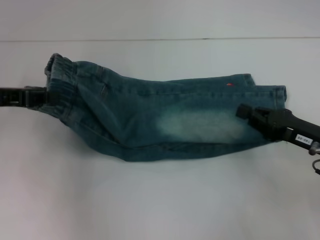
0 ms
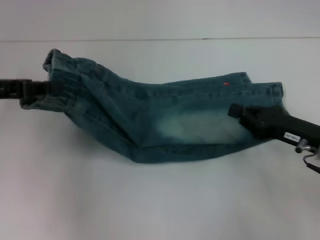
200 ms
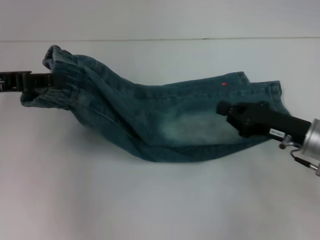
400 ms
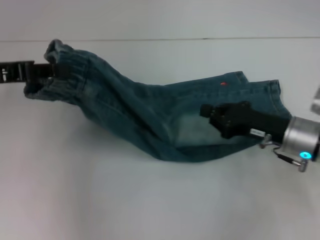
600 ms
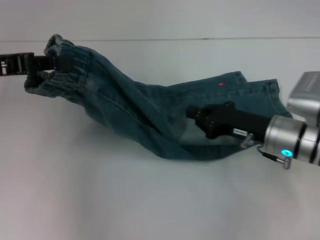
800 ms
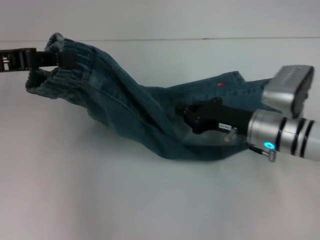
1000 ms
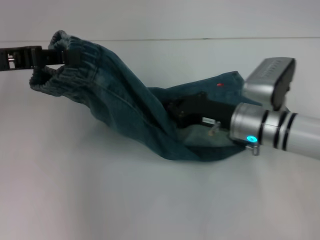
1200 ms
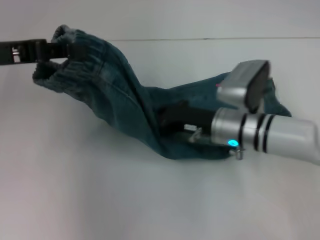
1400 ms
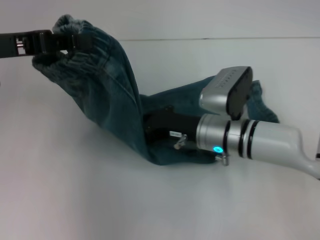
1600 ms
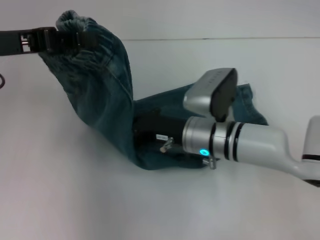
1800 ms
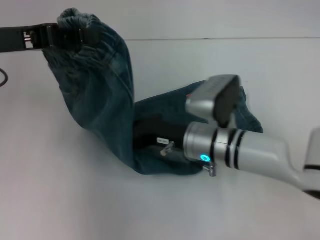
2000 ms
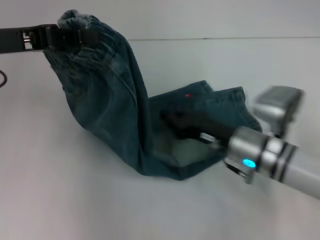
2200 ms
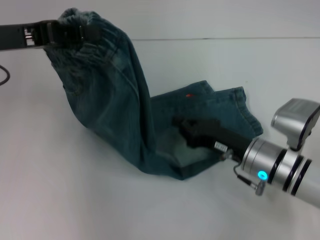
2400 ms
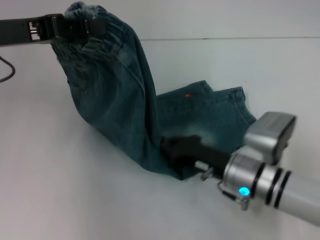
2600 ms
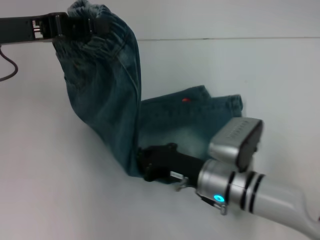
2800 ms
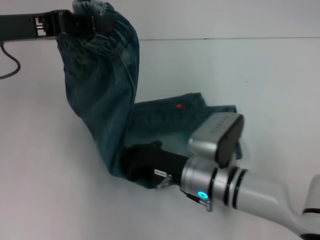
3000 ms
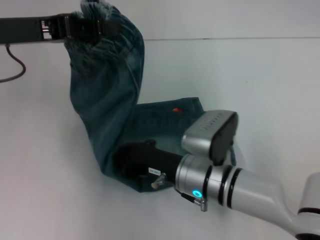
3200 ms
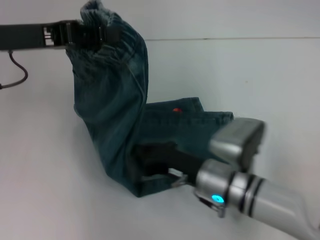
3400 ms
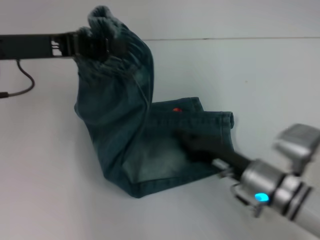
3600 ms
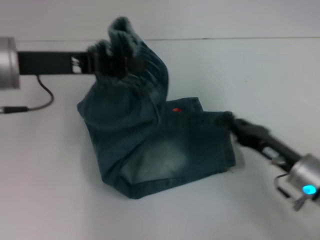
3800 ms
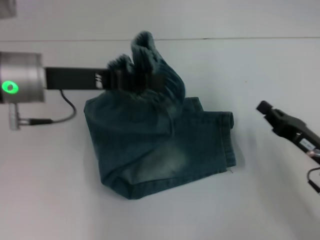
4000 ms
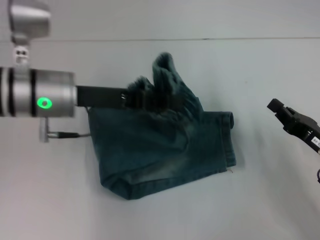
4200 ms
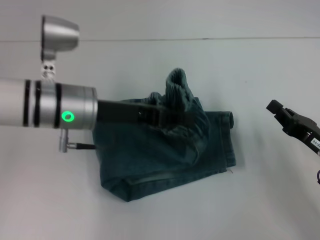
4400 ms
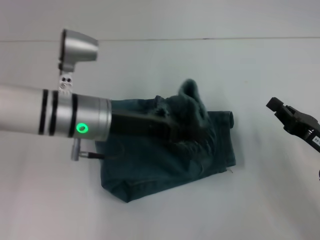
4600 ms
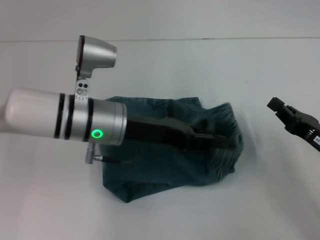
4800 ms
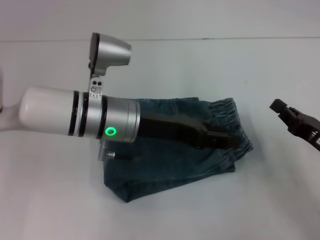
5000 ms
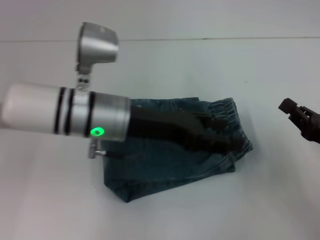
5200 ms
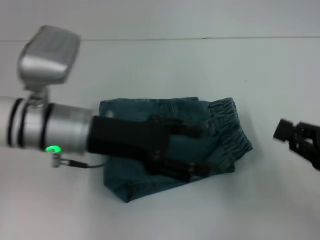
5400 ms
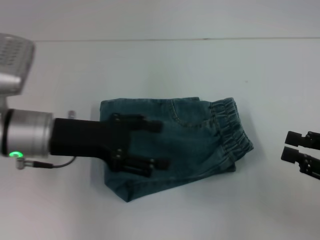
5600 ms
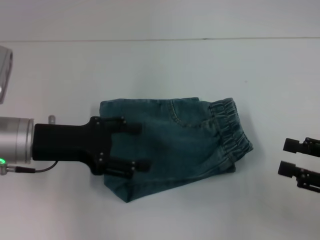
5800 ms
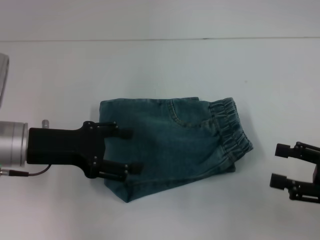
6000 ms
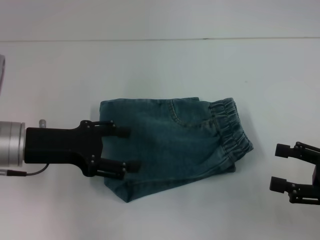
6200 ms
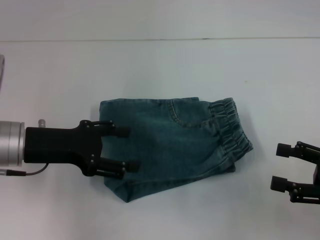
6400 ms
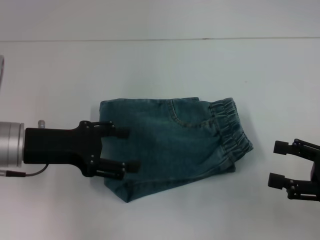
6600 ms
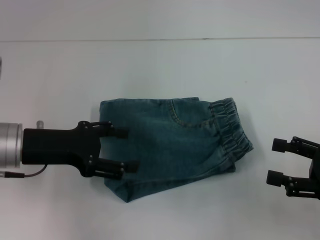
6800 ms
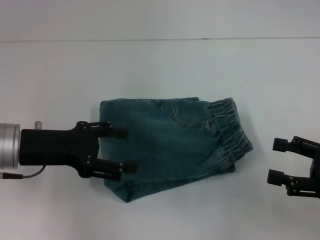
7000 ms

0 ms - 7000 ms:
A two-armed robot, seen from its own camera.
Step, 0 ms - 3400 ms: Press the middle of the pants with your right hand.
Step, 3600 ms - 5000 ms: Fold to the right with your left hand.
0 ms - 1400 ms: The right gripper travels to the left and forward by approximately 15 cm. The left gripper shifts about 5 cm upward.
1400 ms - 2800 ms: The right gripper swings left and right, approximately 10 cm each way, with 2 reversals.
2800 ms - 4200 ms: The left gripper goes roughly 10 cm to the right and downward. Meanwhile the right gripper heads to the right, covering about 20 cm.
4200 ms - 5600 ms: The left gripper changes place by about 5 cm, and opens its fingers, while the right gripper goes approximately 10 cm upward and to the right.
5600 ms - 7000 ms: The right gripper opens.

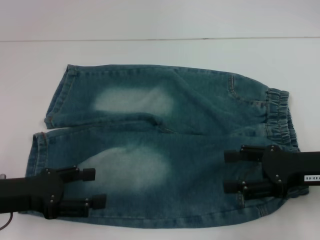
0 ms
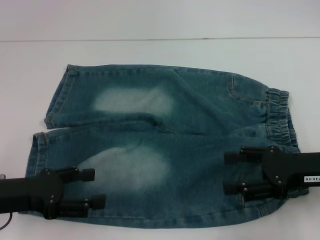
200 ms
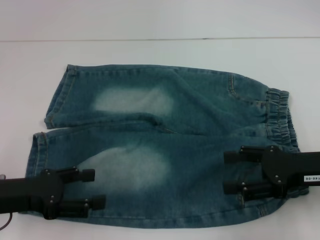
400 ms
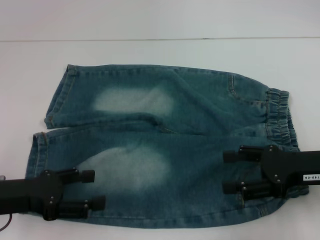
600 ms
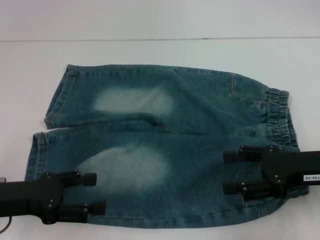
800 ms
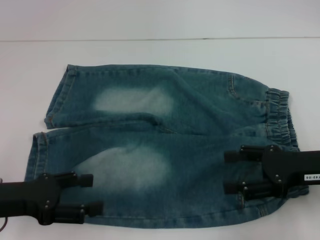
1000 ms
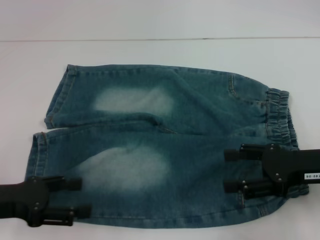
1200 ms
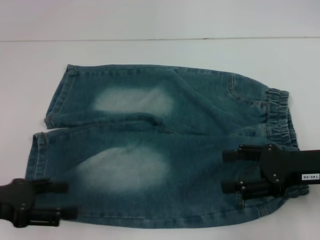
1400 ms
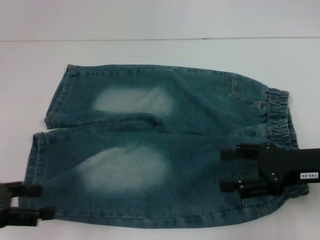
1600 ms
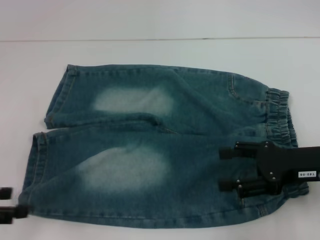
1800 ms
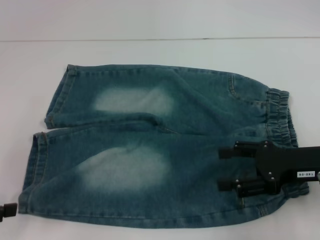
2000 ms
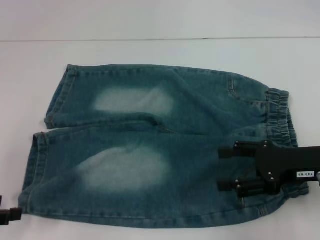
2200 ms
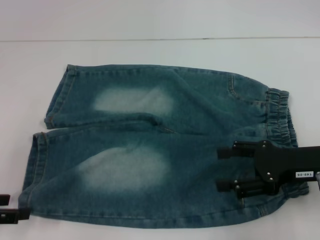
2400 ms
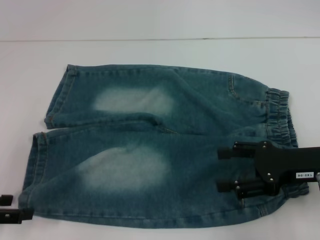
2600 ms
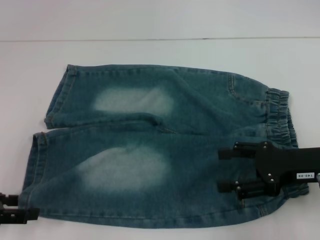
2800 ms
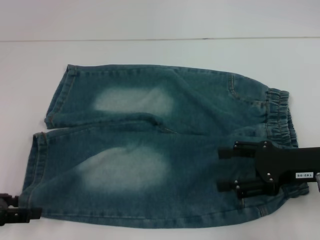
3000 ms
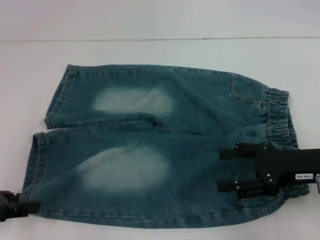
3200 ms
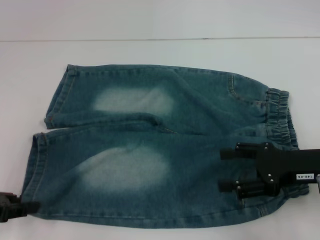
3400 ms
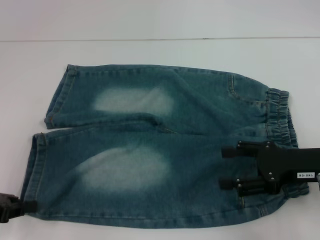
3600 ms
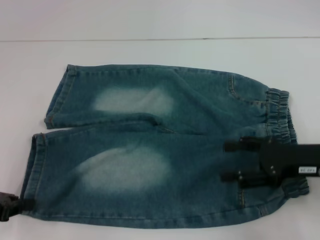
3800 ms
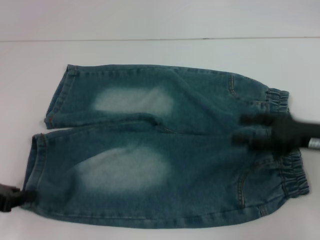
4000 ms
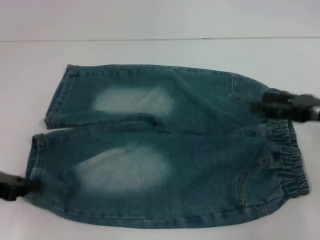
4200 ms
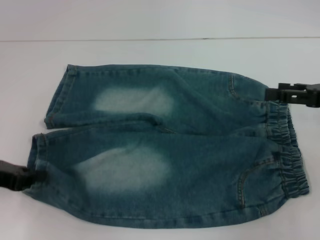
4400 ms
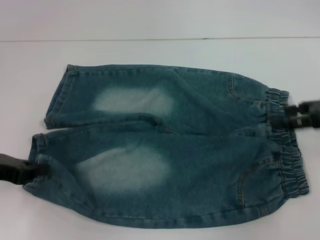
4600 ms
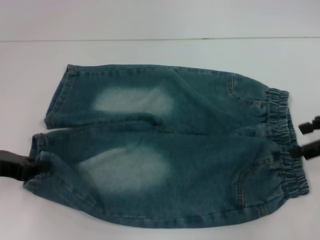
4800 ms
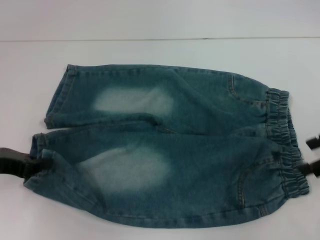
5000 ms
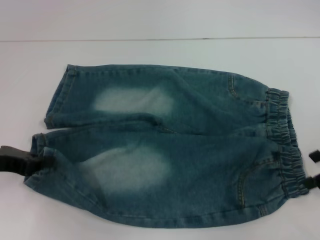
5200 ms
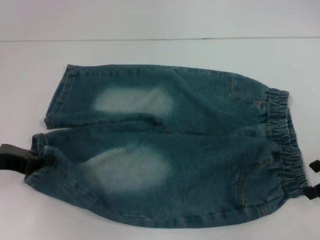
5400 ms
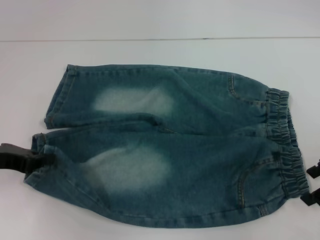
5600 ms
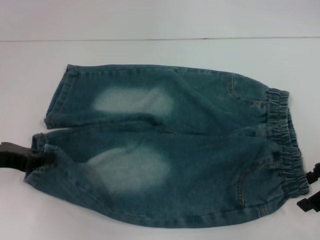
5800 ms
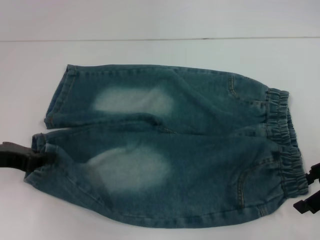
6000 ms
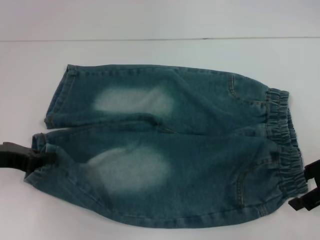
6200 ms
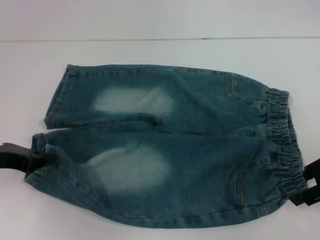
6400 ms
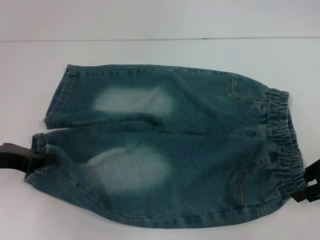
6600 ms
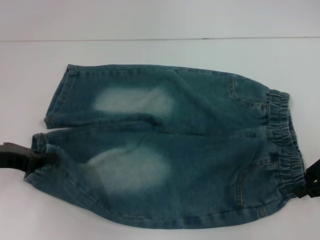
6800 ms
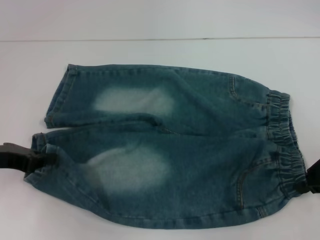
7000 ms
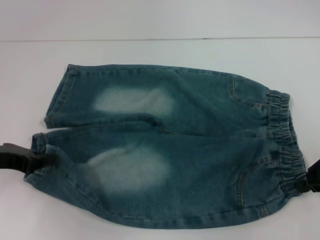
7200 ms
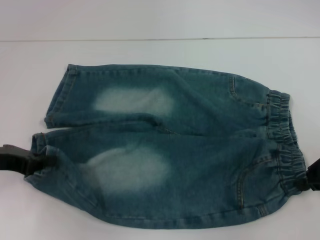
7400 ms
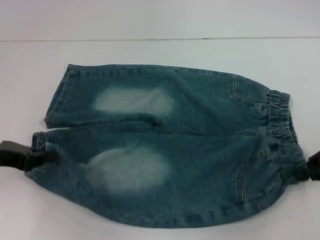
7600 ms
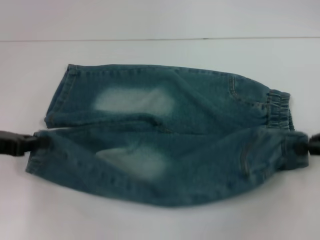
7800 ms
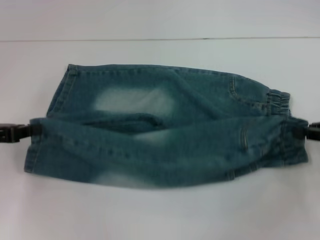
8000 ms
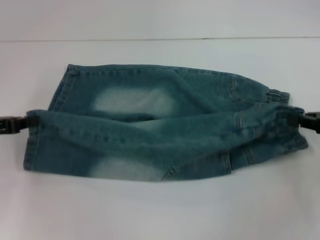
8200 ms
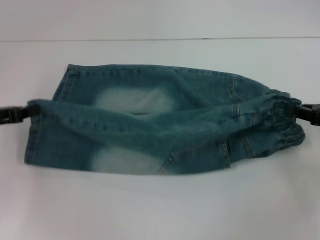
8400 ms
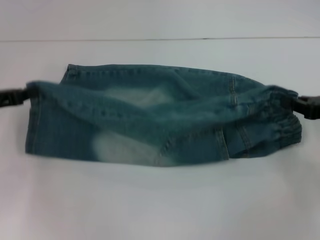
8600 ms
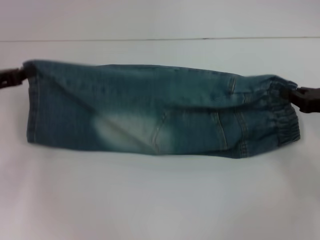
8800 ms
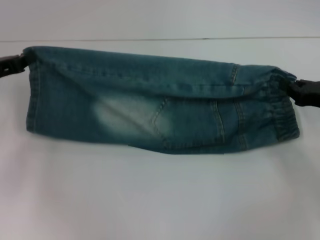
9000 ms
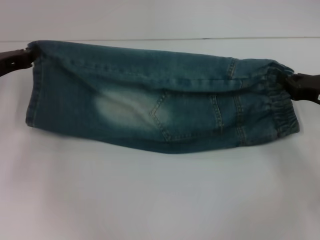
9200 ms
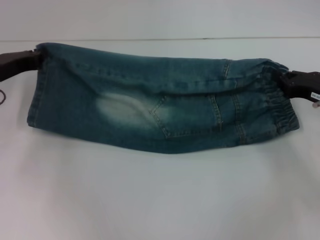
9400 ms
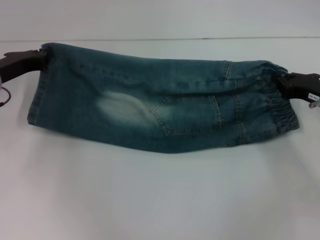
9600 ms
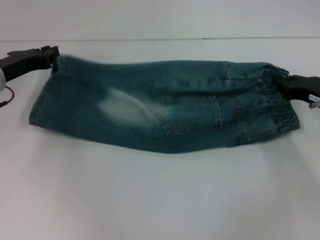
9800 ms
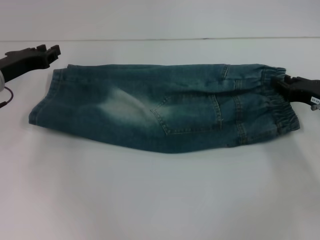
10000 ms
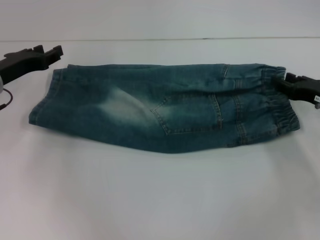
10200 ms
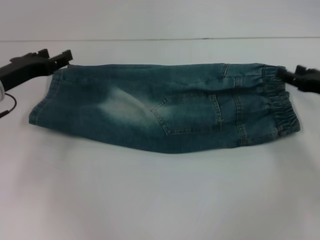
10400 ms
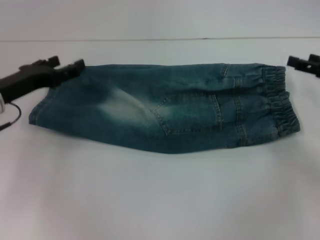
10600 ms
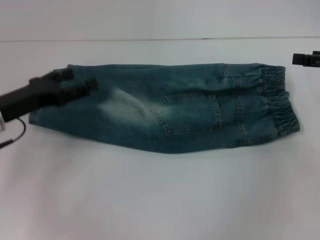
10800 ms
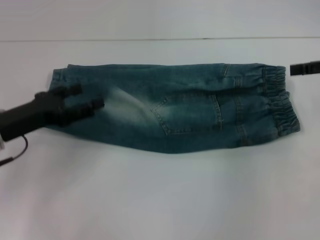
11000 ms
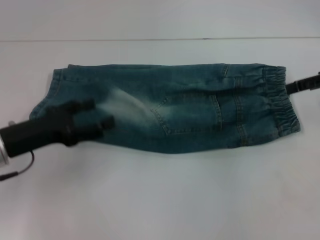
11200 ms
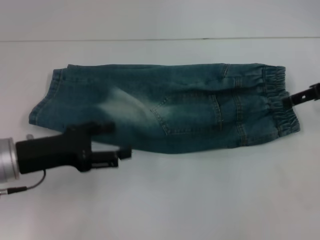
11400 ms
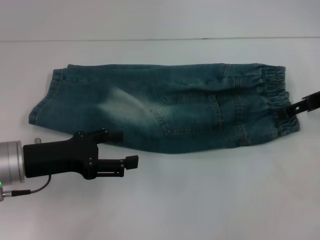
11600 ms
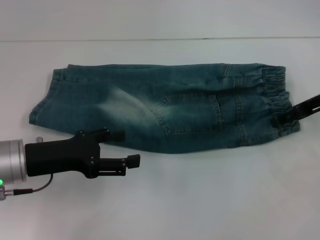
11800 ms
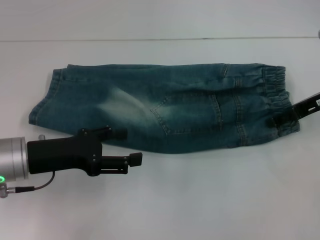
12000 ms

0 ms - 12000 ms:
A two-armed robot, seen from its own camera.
Step, 0 ms - 3800 ms: Grab the lower left pant leg with your left hand.
Step, 4000 ms - 7200 ms: Hold the lower right waistband with your right hand.
Step, 7400 ms - 9800 ms: Fold upward with your left hand.
0 ms - 1600 ms: The left gripper goes approximately 5 cm to the left.
1600 ms - 3000 ms: The grippers stay close to where they were, moving slightly.
3000 ms - 4400 ms: The left gripper closes its fingers. The right gripper shifts roughly 10 cm to the right and forward.
6000 ms - 7600 ms: The right gripper closes up.
7600 ms - 9000 ms: The left gripper is displaced forward by about 5 cm; the right gripper travels downward by about 5 cm.
9000 ms - 10400 ms: The left gripper opens its fingers. The right gripper opens its fingers.
10400 ms - 12000 ms: The right gripper goes about 5 cm upward, and opens up, while the left gripper shifts about 10 cm backward, and opens.

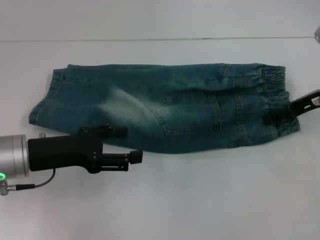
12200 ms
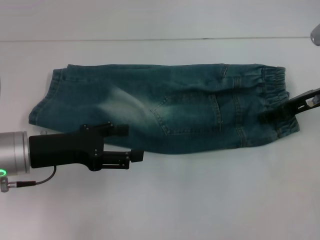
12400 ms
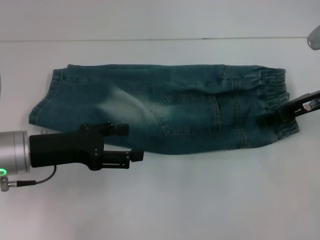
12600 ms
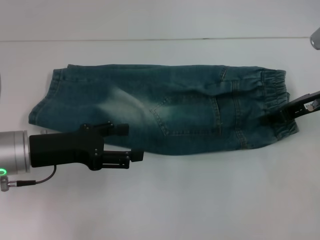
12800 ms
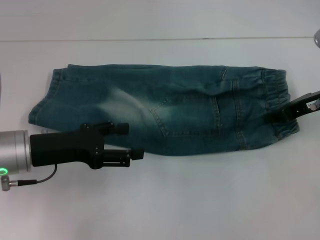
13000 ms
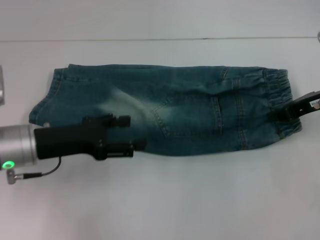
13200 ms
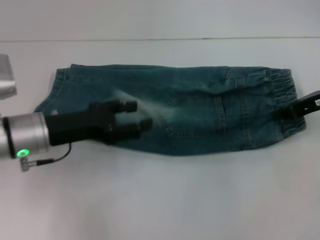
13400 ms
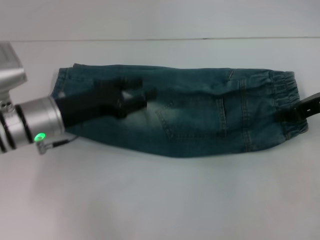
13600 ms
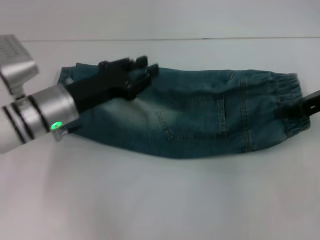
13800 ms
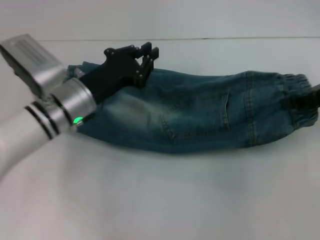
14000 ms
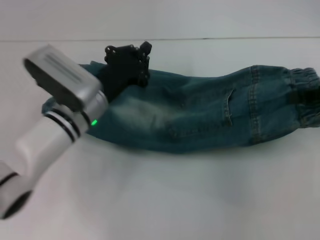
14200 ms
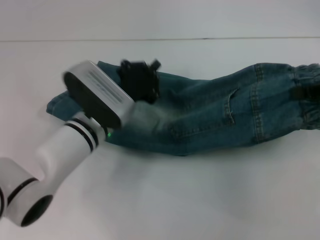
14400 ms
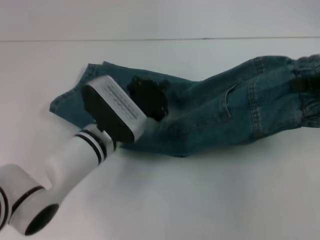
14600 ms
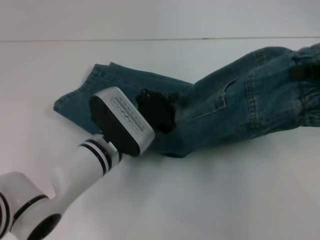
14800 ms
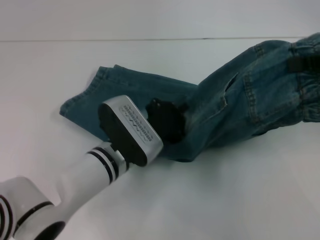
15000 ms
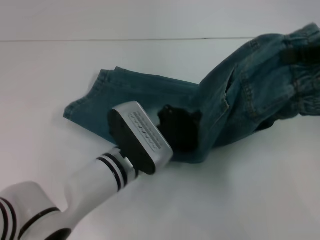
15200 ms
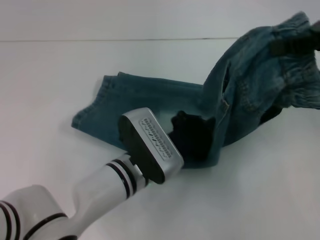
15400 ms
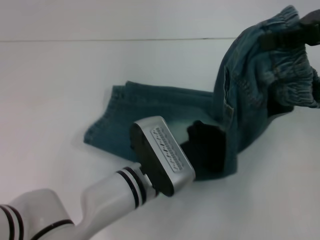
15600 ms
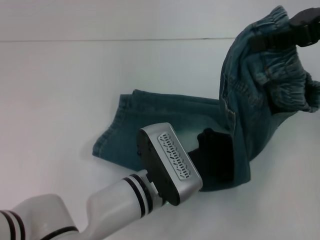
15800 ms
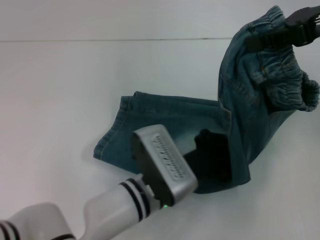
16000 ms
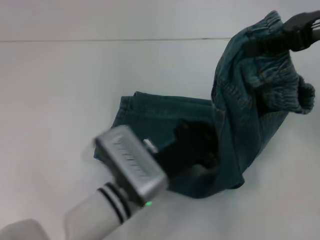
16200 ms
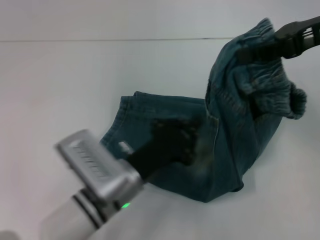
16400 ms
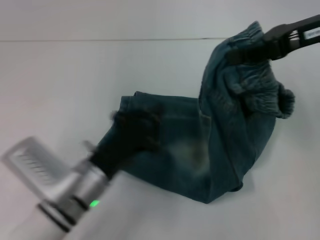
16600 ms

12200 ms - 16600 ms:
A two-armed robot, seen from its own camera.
Step, 13400 ms - 15800 ms: Press the middle of the pants with your left hand.
12200 ms - 13600 ms: The left gripper shifts by roughly 5 cm. Meanwhile the right gripper closes up.
13600 ms - 15200 ms: The left gripper travels to the right and downward by about 15 cm, and closes its fingers. The right gripper is displaced upward by about 10 cm.
15200 ms - 16600 ms: The right gripper moves to the left, approximately 5 cm, while the left gripper goes about 10 cm to the left and backward.
